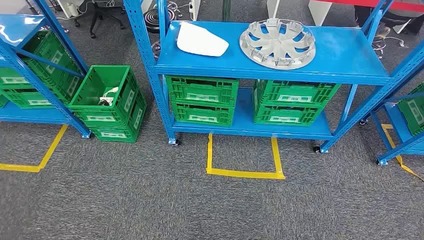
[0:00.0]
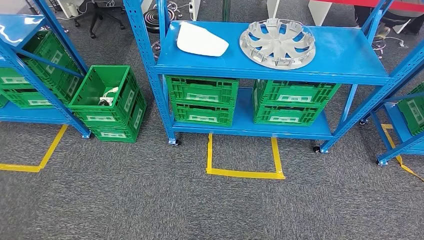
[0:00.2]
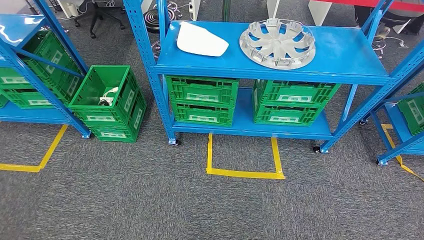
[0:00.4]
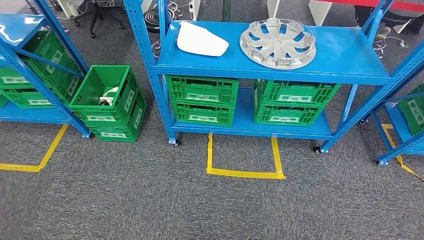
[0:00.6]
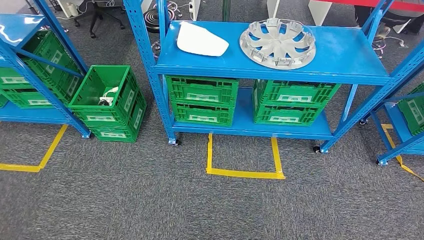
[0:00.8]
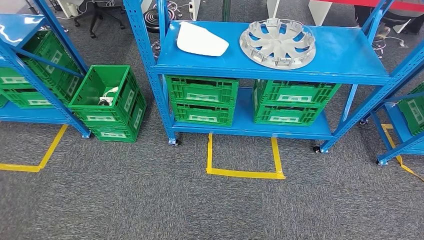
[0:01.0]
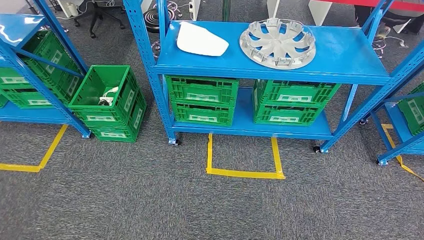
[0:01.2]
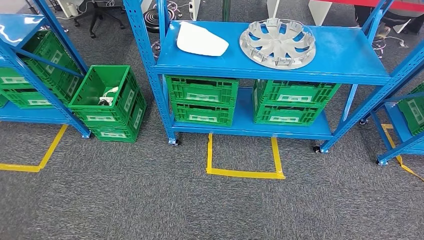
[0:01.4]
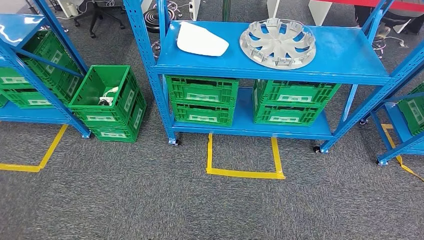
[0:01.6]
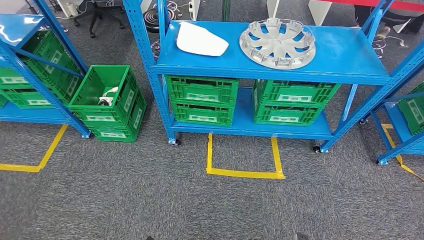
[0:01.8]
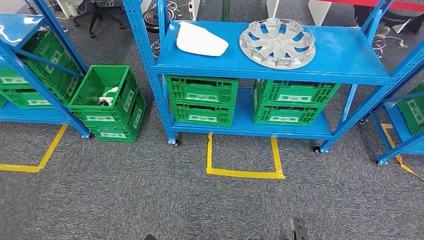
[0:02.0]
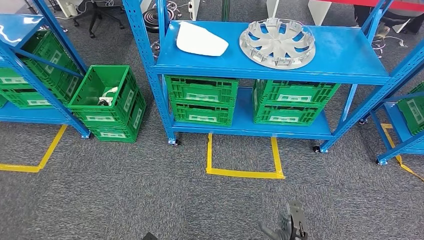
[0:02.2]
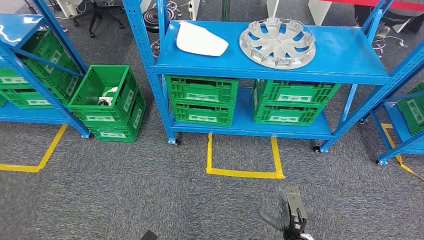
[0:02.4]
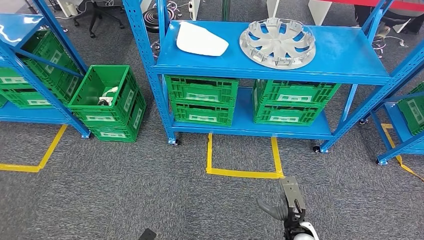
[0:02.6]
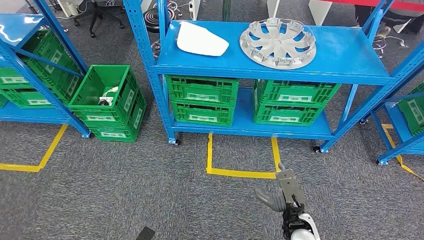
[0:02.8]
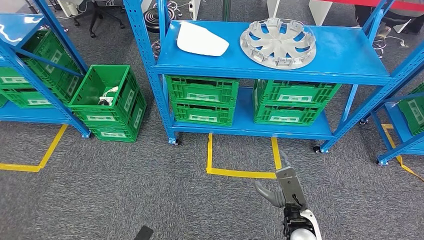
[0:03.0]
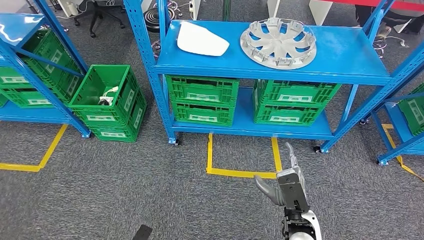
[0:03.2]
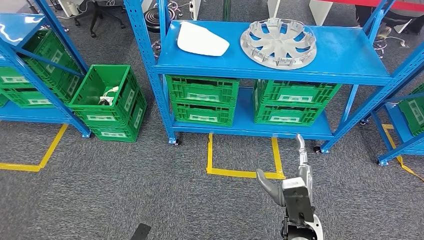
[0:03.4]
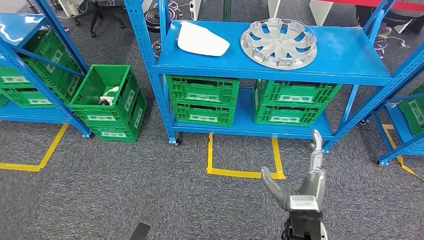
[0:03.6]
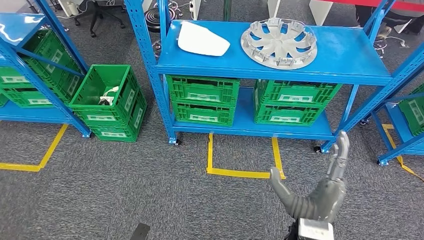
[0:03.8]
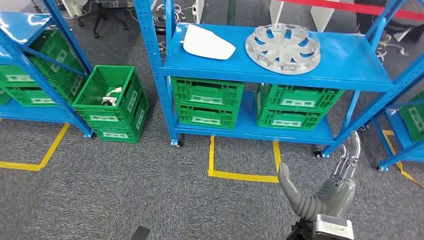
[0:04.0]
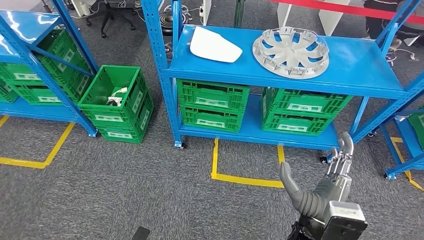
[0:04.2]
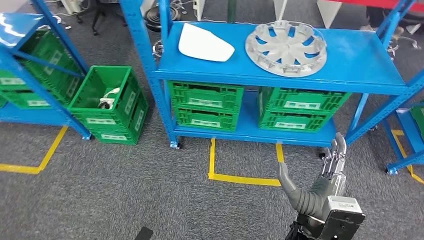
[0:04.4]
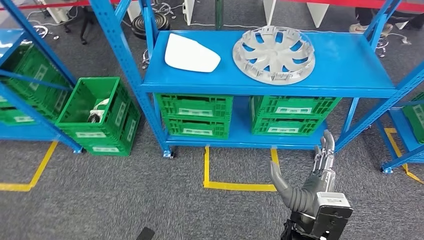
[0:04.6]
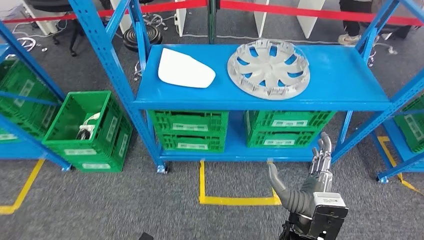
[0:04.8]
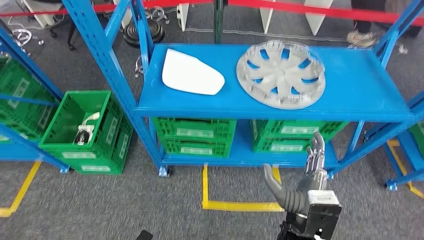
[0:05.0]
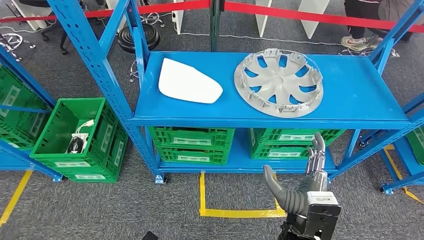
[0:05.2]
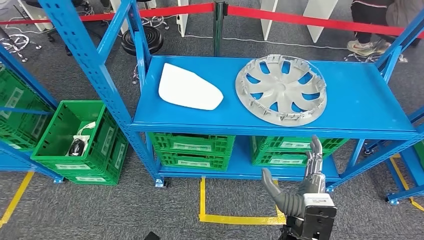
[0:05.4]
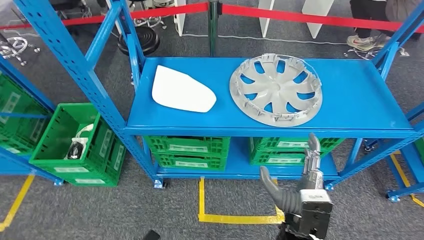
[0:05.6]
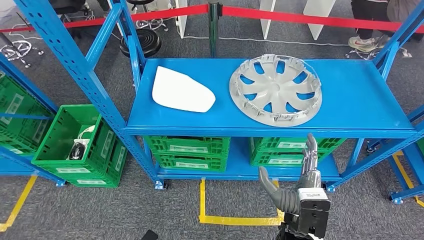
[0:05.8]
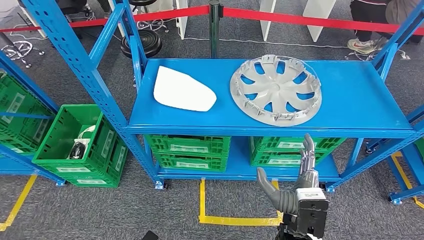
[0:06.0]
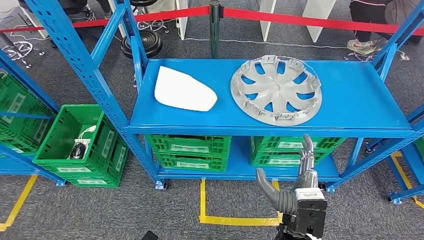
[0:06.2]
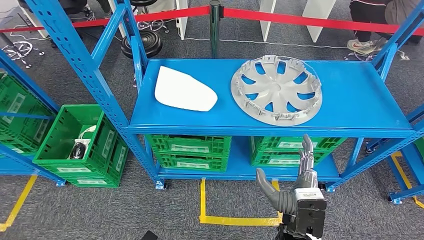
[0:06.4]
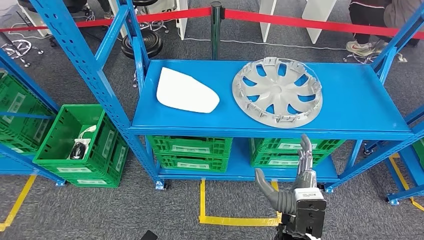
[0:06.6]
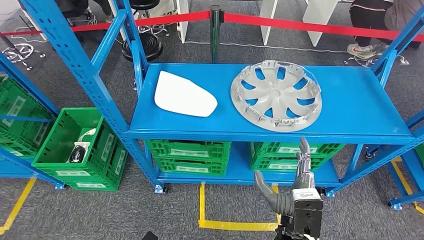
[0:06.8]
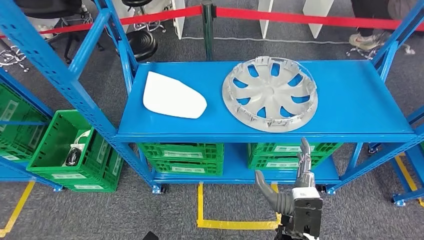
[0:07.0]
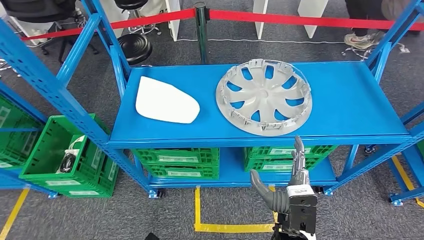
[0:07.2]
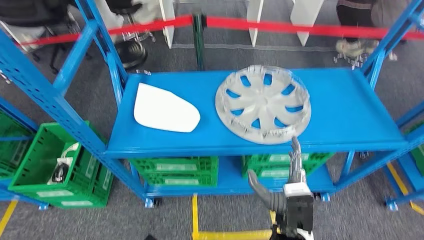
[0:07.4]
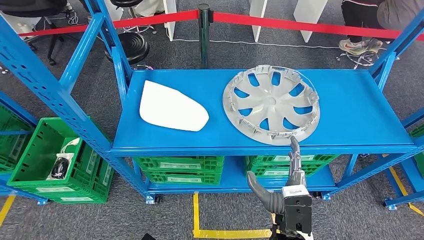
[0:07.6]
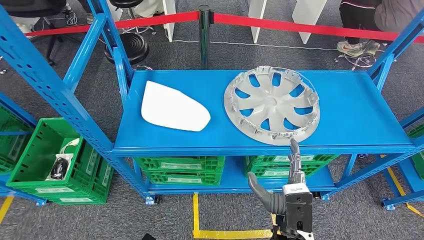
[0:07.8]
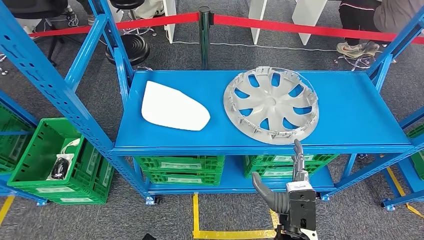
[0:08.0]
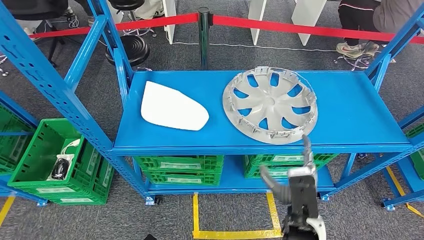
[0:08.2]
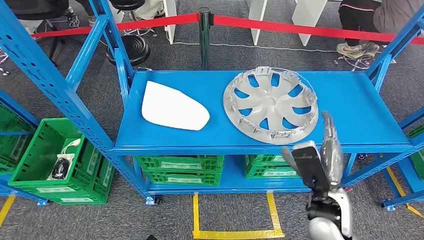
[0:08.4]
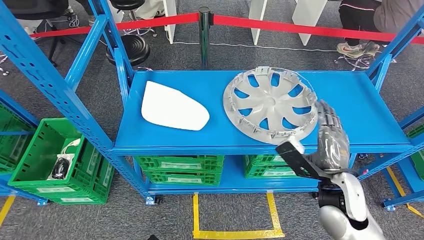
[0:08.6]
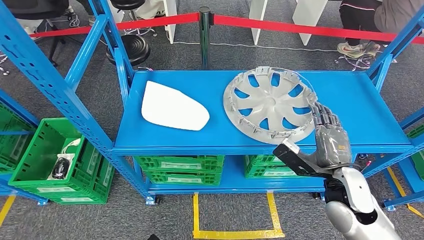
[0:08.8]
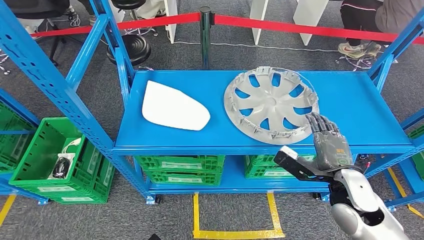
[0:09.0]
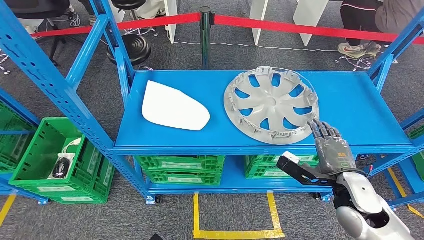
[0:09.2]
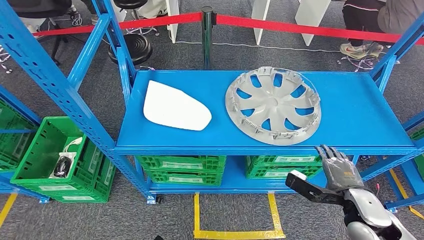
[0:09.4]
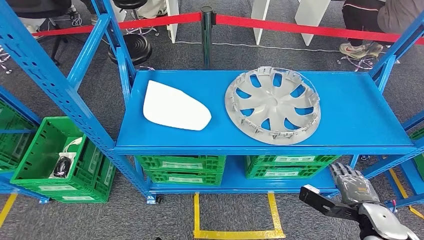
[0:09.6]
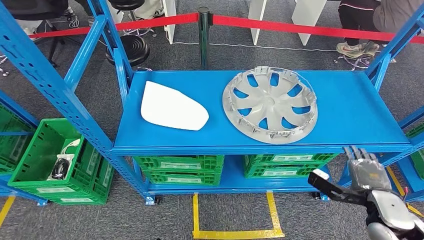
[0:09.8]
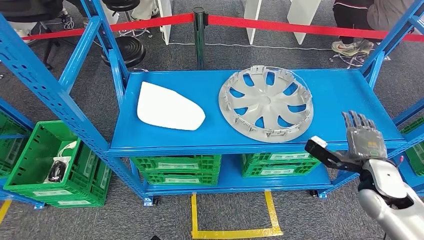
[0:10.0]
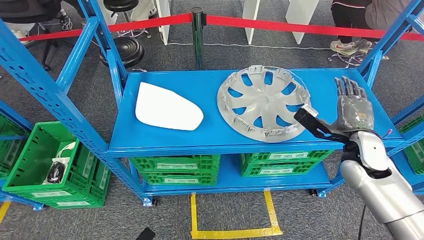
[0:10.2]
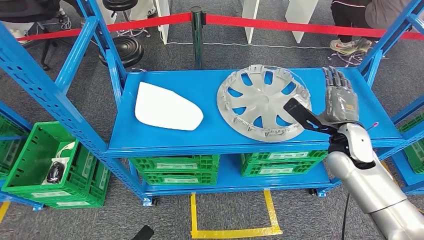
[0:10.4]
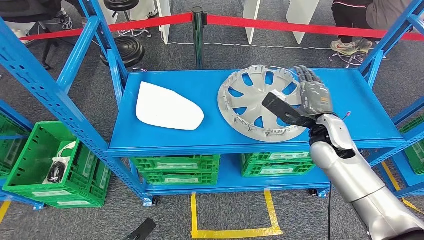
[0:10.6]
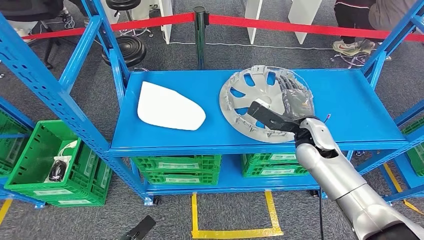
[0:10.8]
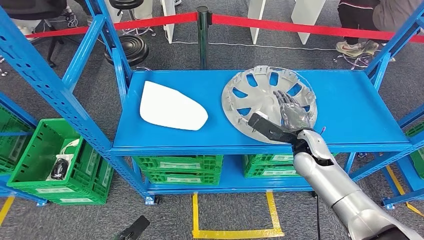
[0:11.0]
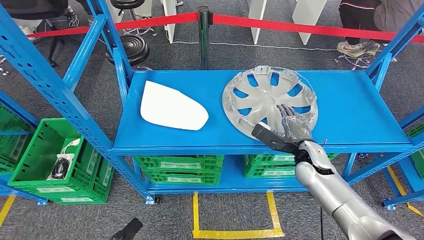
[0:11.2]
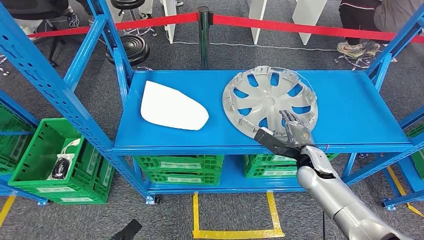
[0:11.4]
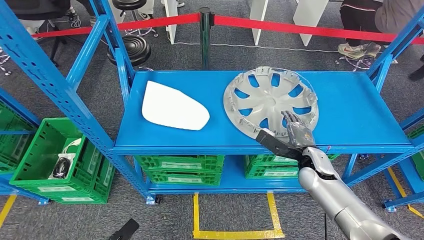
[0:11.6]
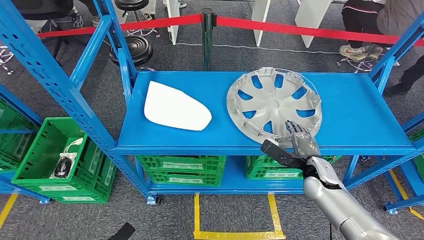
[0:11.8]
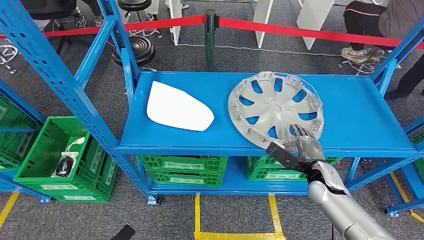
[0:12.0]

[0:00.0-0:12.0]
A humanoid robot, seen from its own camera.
0:01.6 to 0:03.0: The right hand shifts roughly 25 cm upward and forward.

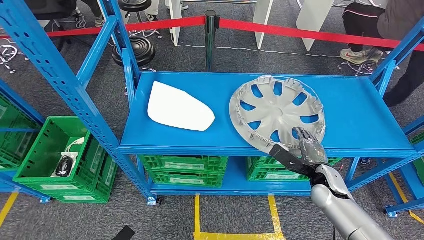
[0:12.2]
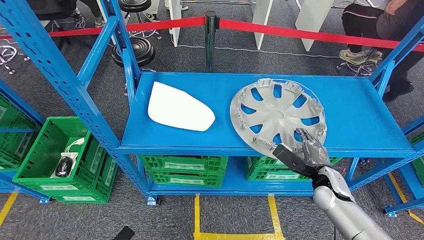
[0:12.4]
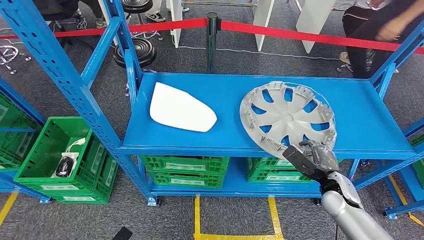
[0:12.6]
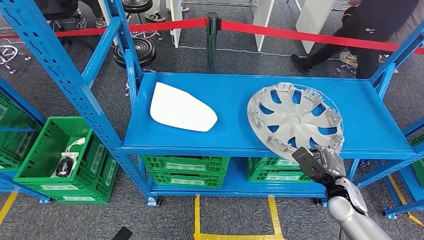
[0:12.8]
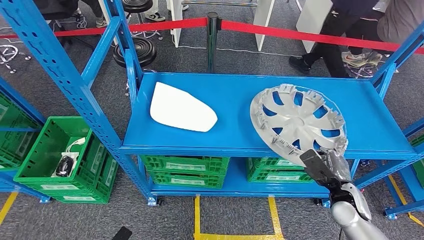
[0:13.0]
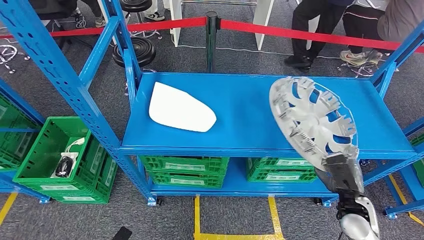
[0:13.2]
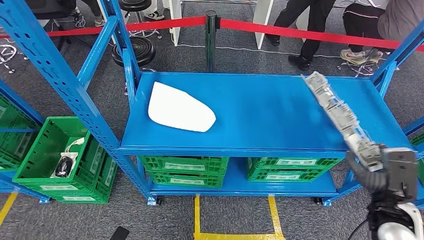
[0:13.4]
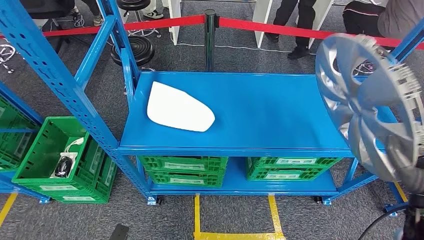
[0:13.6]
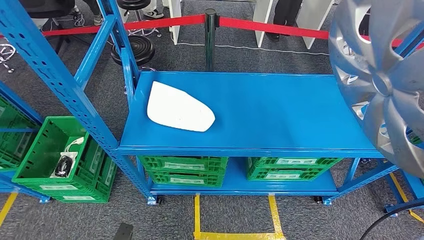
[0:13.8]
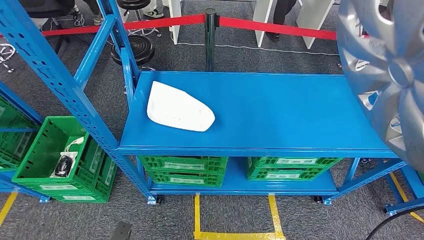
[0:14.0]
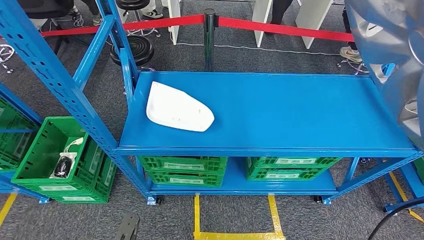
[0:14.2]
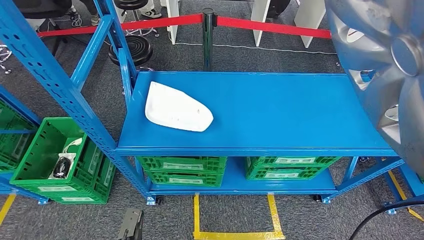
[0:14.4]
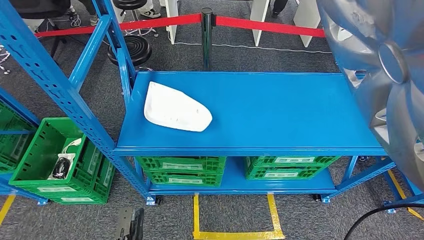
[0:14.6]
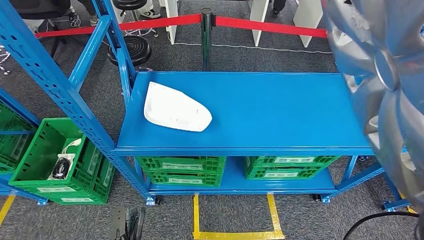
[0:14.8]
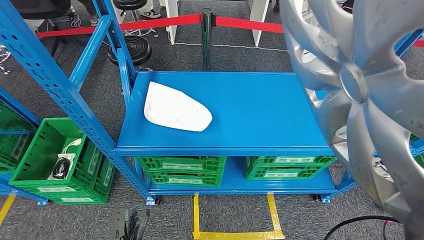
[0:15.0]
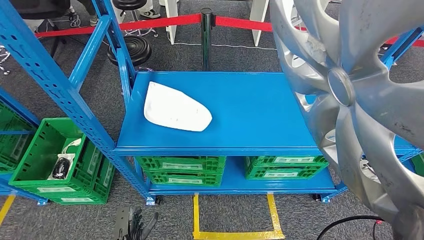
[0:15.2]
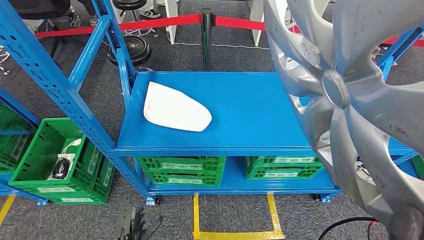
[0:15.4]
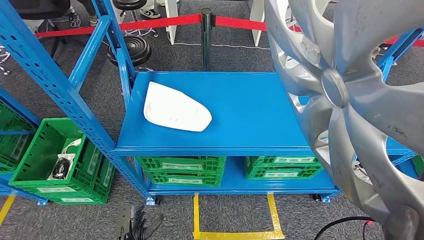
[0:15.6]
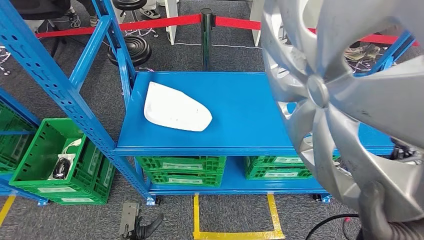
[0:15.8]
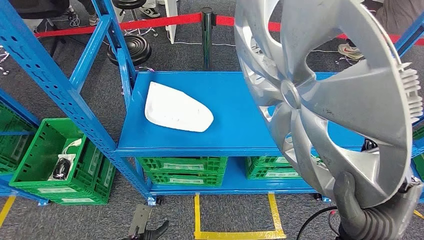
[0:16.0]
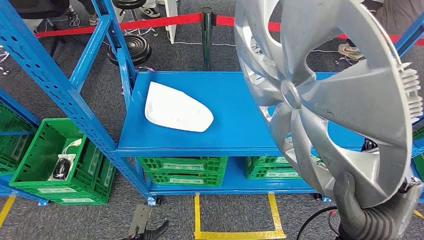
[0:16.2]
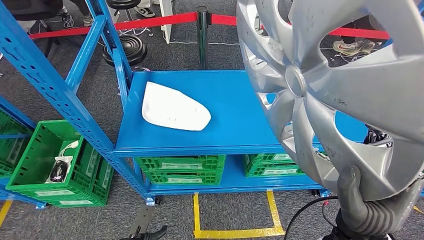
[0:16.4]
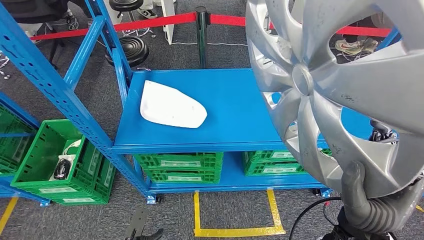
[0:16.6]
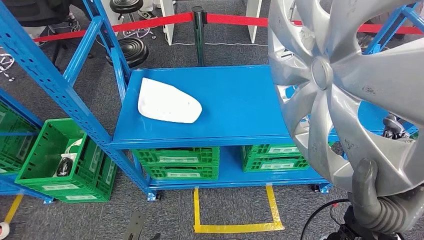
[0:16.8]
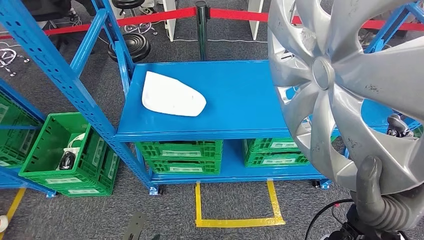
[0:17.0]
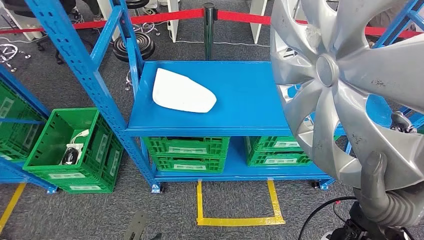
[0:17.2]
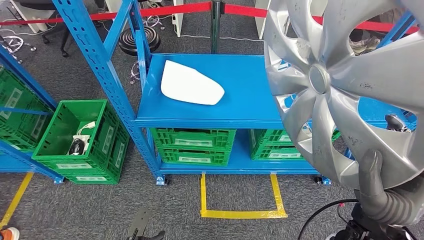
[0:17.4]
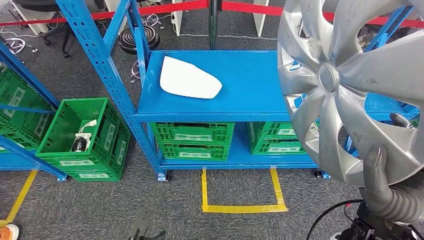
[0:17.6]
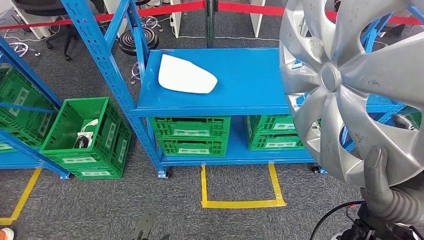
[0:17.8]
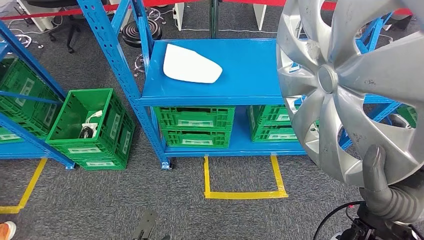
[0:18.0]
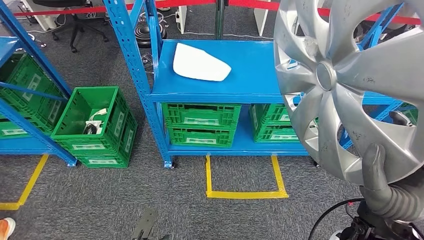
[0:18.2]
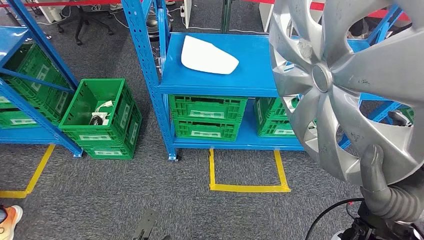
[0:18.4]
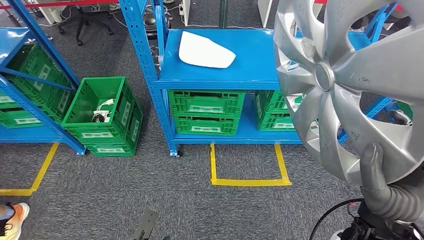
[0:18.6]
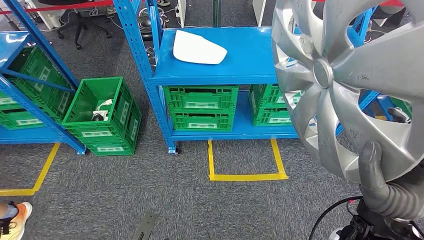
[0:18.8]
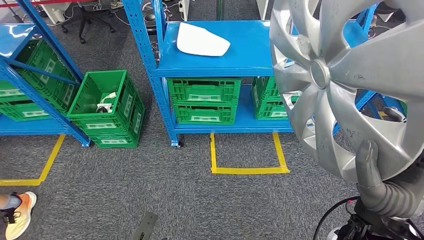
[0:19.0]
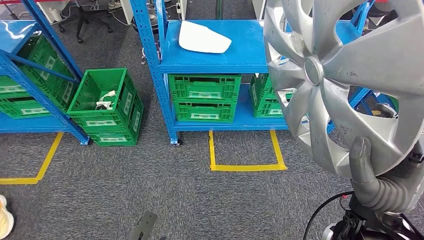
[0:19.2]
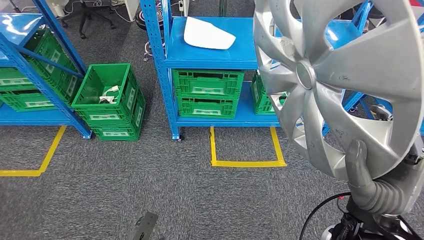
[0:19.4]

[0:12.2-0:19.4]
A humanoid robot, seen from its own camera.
Step, 0:12.2 to 0:14.4: Take small components from the rack.
